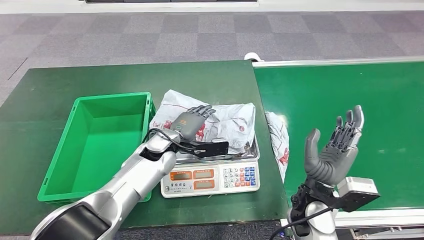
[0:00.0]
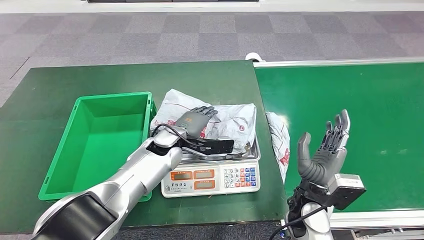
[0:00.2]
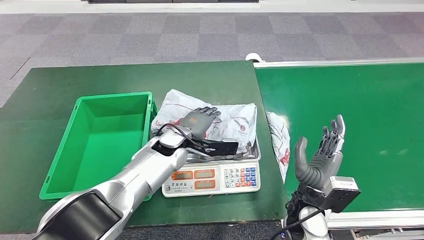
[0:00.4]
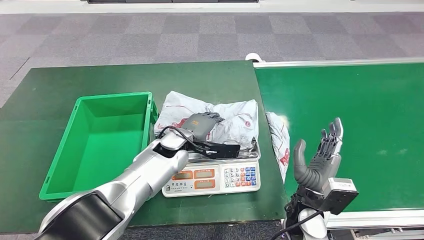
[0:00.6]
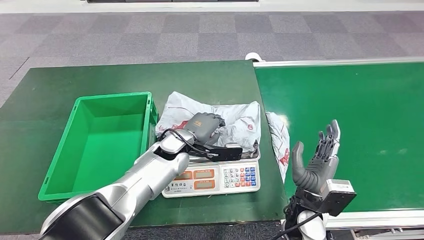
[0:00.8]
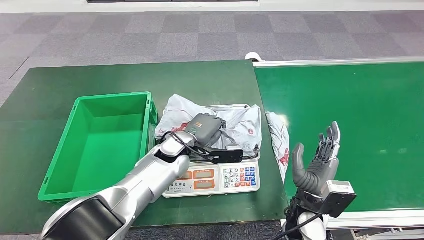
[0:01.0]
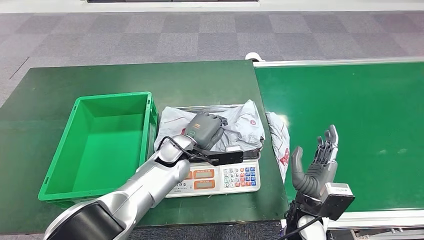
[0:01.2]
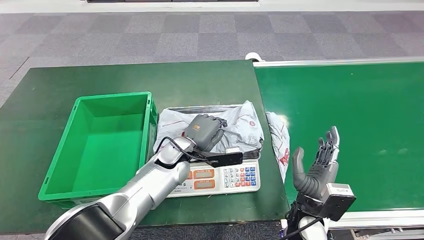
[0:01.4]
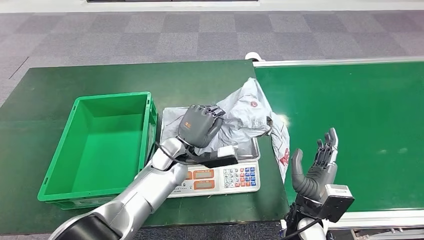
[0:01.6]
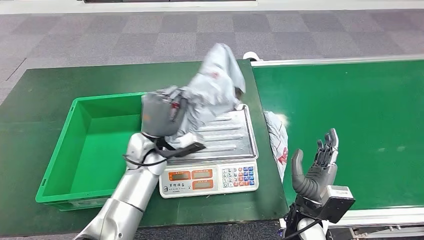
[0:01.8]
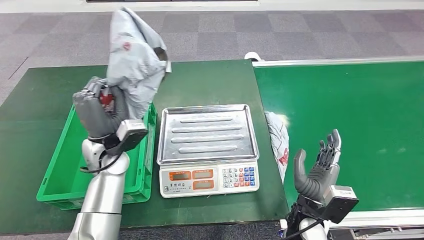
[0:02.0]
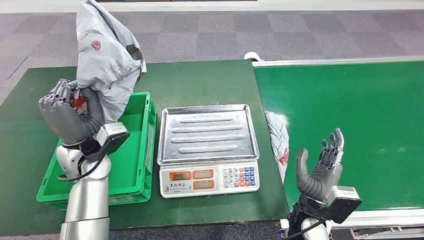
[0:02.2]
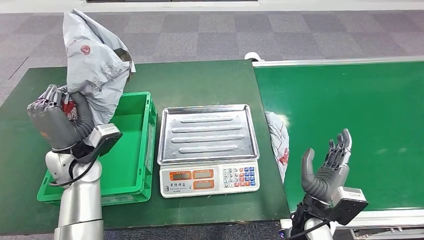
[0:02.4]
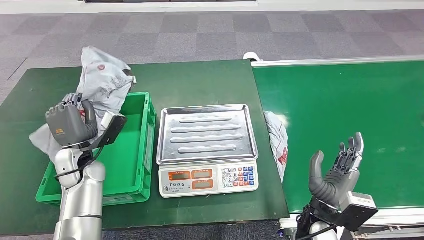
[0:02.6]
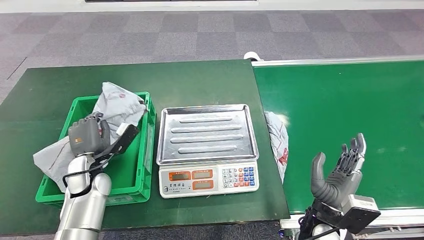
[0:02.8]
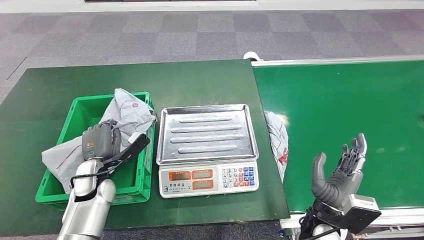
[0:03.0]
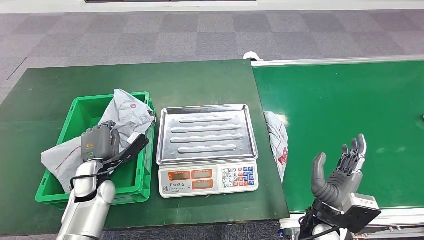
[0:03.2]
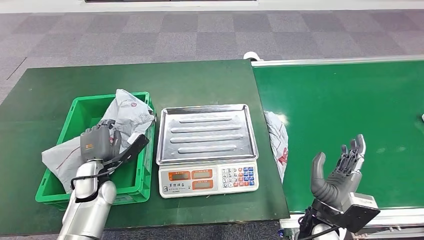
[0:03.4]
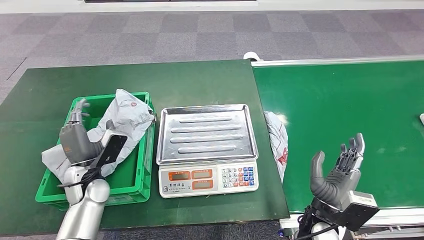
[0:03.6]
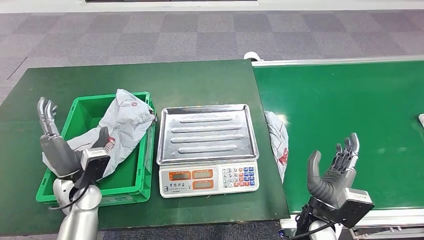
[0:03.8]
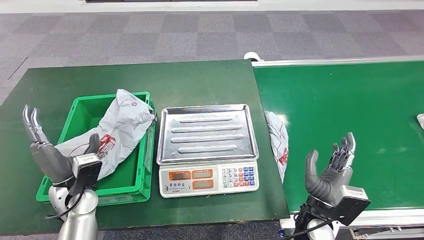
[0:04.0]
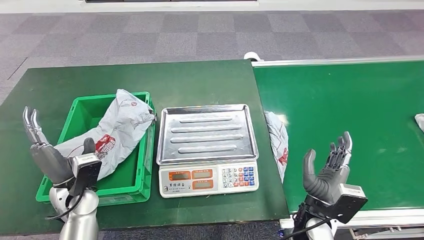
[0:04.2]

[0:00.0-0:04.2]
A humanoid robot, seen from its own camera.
Step, 0:00.4 to 0:01.8: Pick up the package from the inbound machine.
Step, 0:02.0 to 0:04.2: Place the package into the parcel locker.
0:00.0 to 0:01.4: The right hand shifts by about 5 cm.
0:02.8 to 0:04.2: The left hand travels backward by approximately 5 cm.
